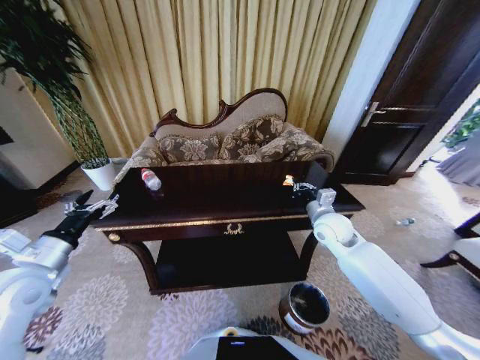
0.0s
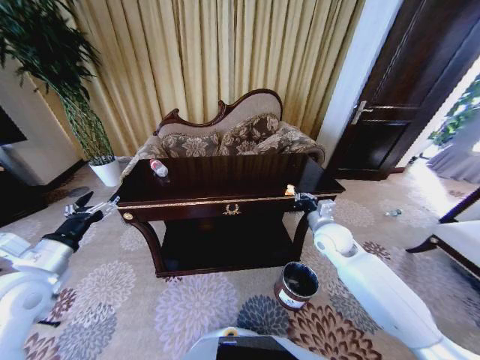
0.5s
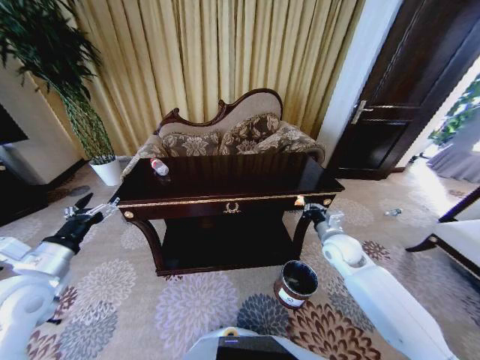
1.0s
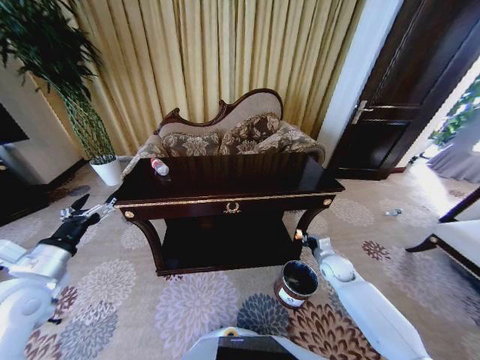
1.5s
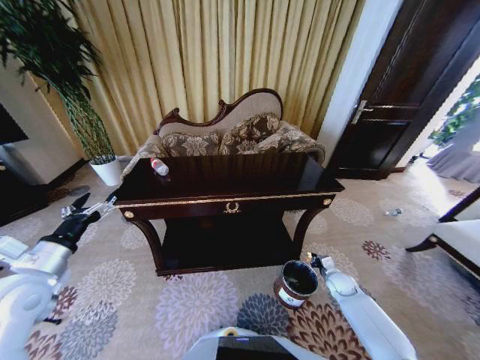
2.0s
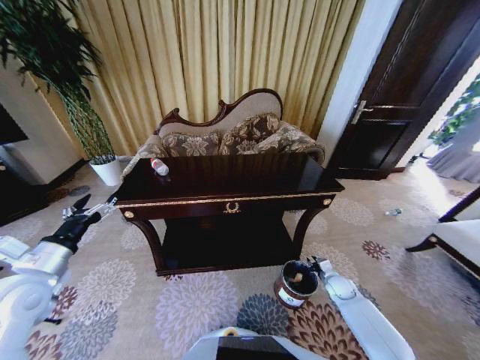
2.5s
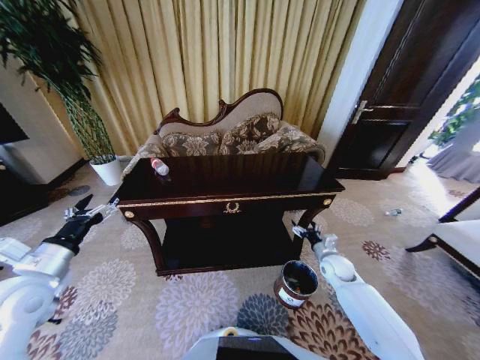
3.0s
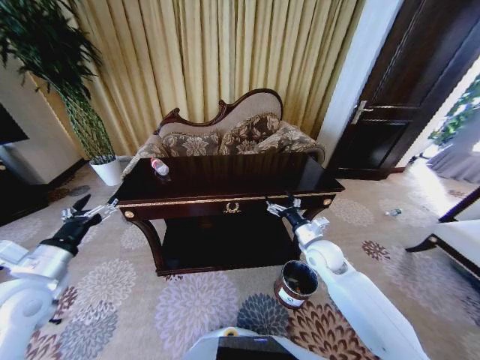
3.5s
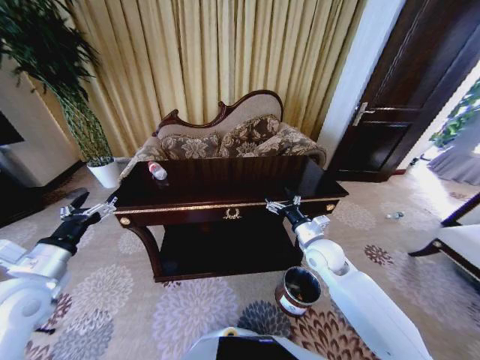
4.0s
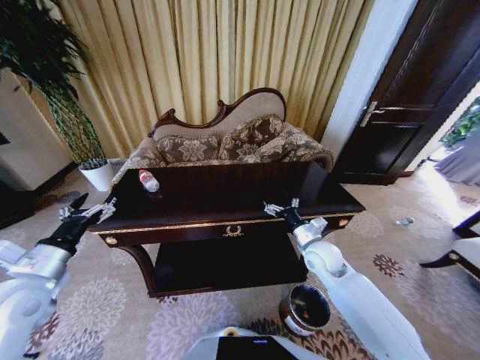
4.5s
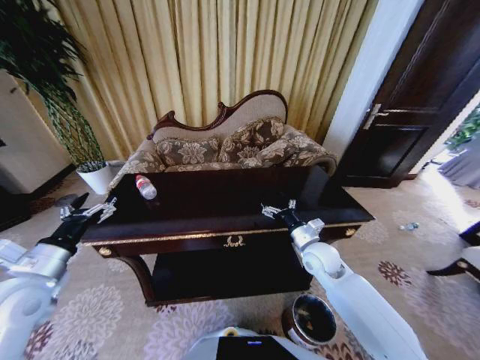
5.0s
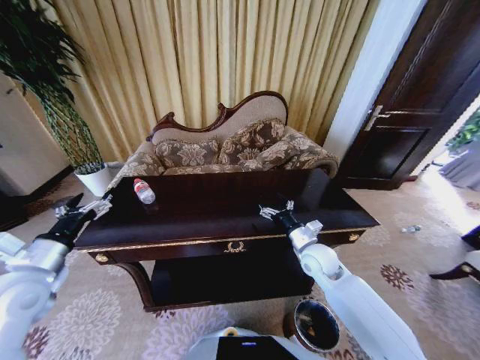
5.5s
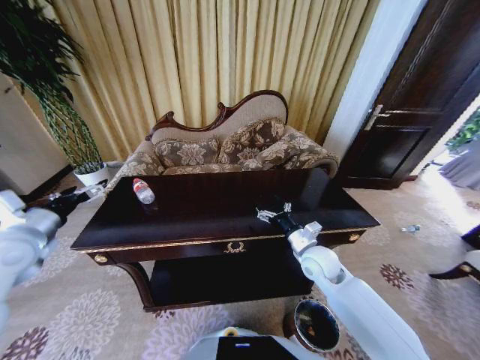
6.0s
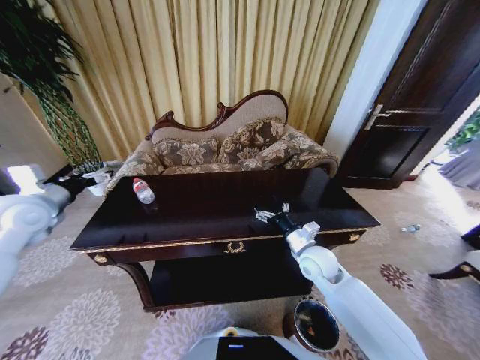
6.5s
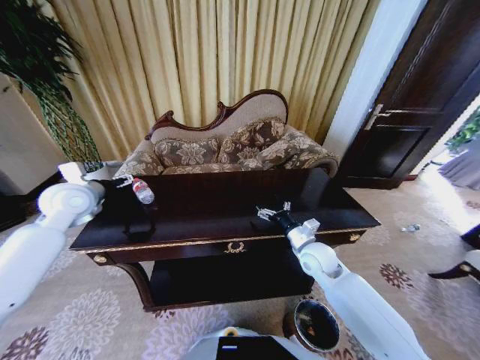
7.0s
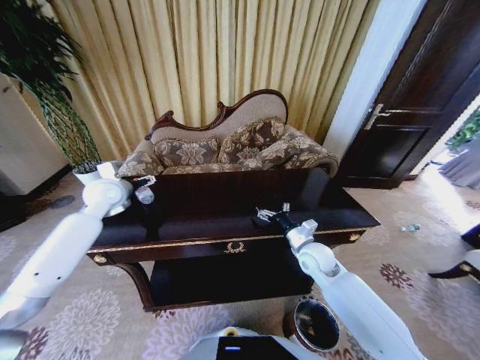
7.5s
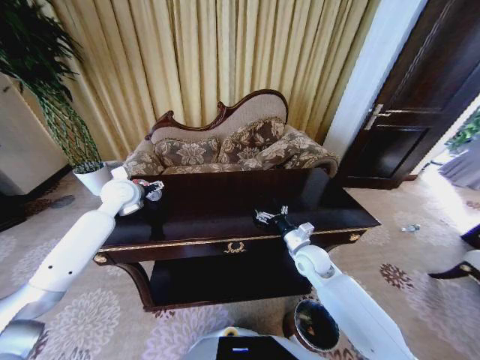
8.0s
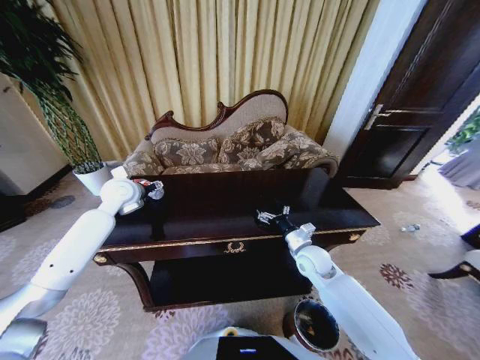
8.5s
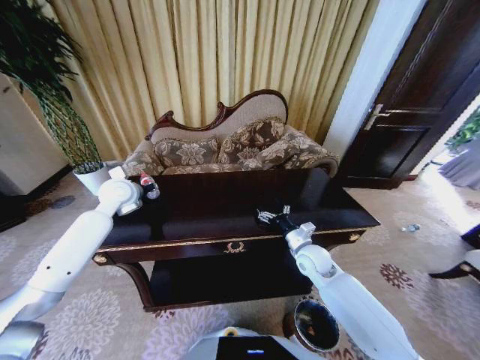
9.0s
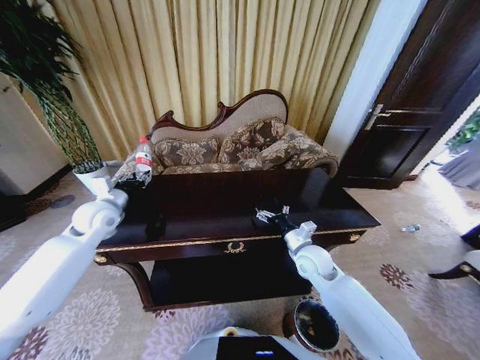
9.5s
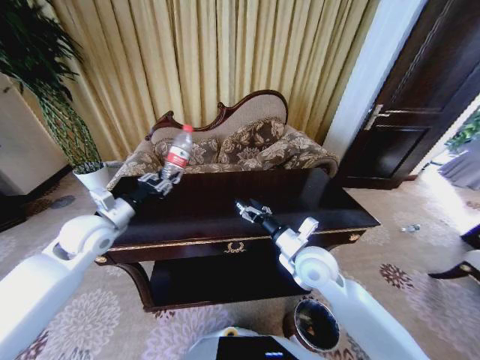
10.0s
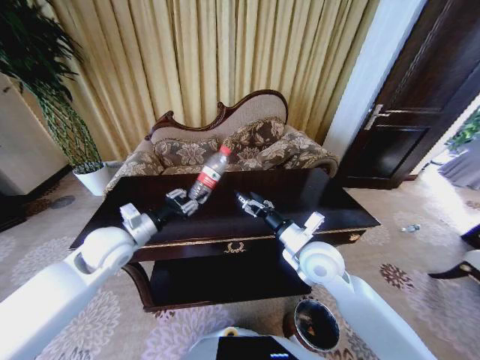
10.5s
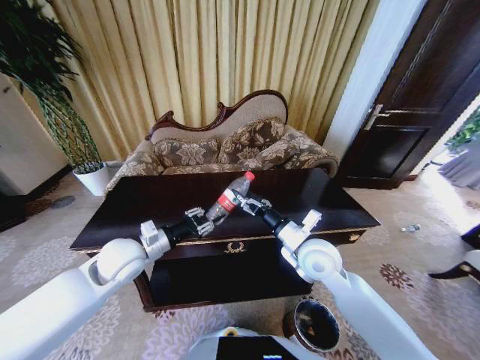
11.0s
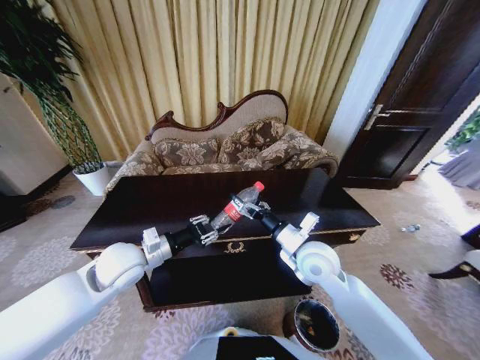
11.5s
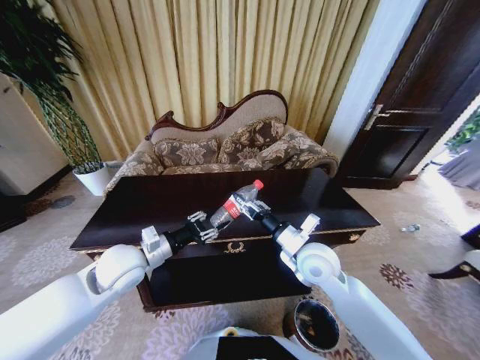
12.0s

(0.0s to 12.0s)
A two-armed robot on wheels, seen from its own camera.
Task of the whole recording: Move to the front of the table and place the trash on the table into the trash bin.
0.0s - 2.0s: The right gripper heads downward and to the right, covering about 30 cm.
2.0s - 4.0s: The right gripper shifts some 30 cm upward and to the left, and opens up.
4.0s - 6.0s: The left gripper heads forward and upward, covering roughly 10 cm.
6.0s - 8.0s: The left gripper shifts about 25 cm forward and to the right.
8.0s - 10.0s: The right gripper heads upward, backward and to the left, covering about 10 cm. The left gripper shifts roughly 10 cm backward, and closes.
10.0s - 12.0s: The left gripper goes about 10 cm to the right and backward. Meanwhile the right gripper closes up.

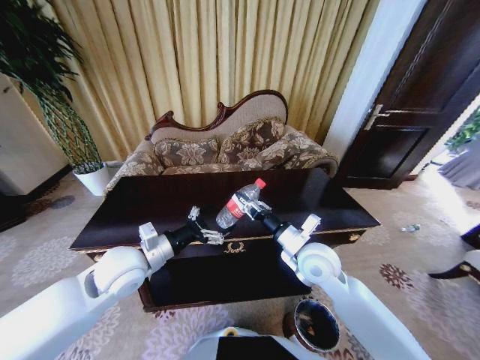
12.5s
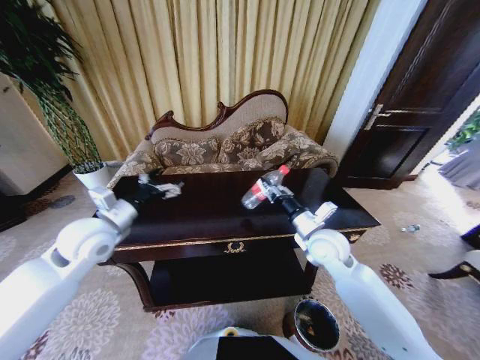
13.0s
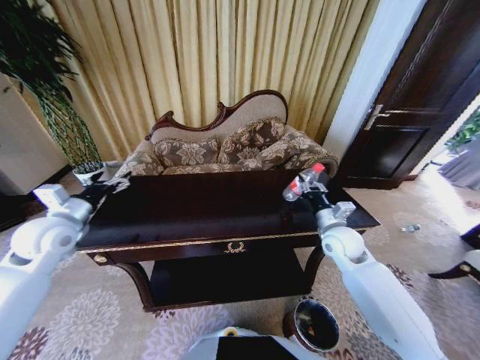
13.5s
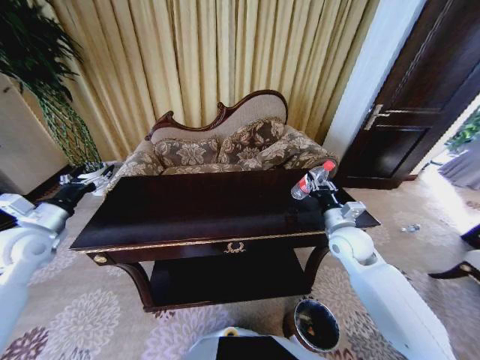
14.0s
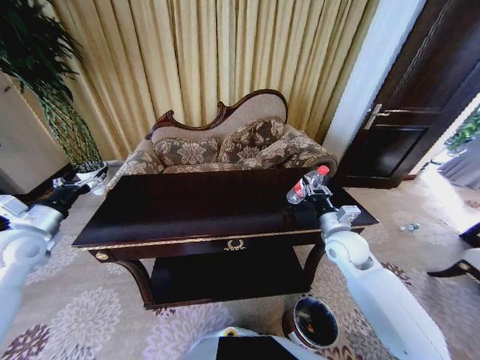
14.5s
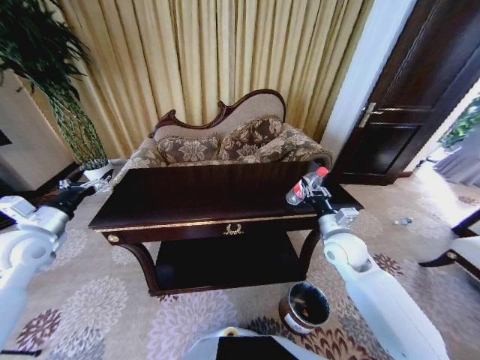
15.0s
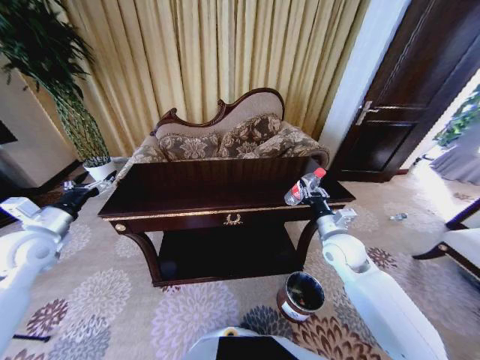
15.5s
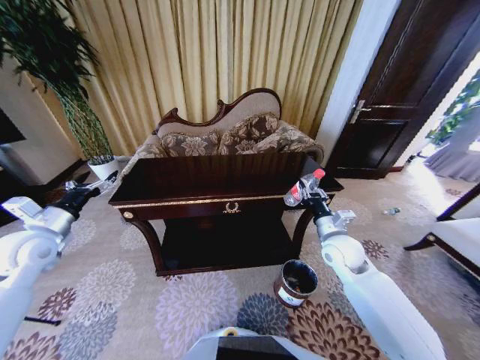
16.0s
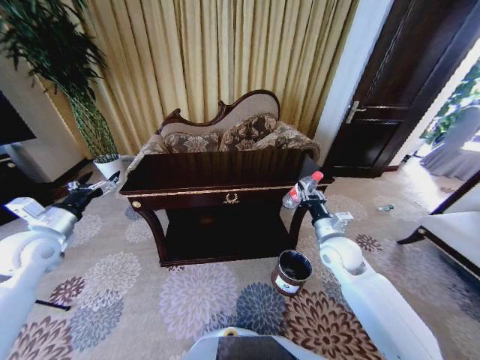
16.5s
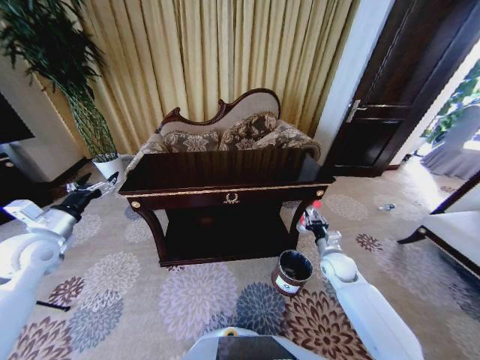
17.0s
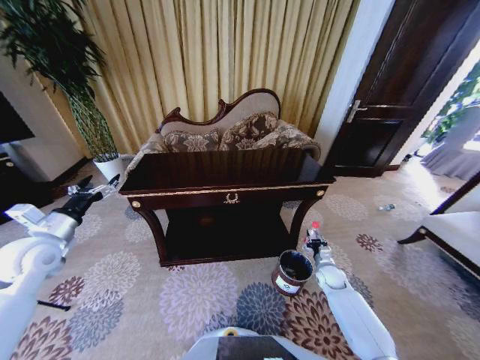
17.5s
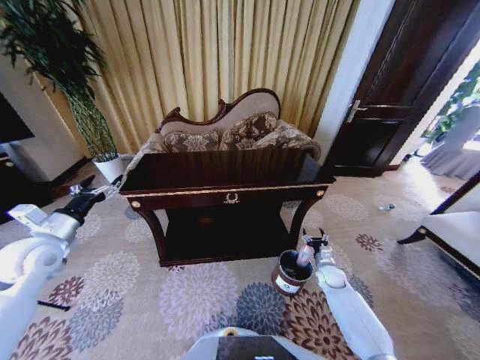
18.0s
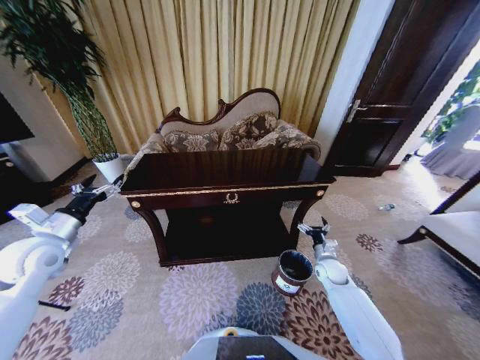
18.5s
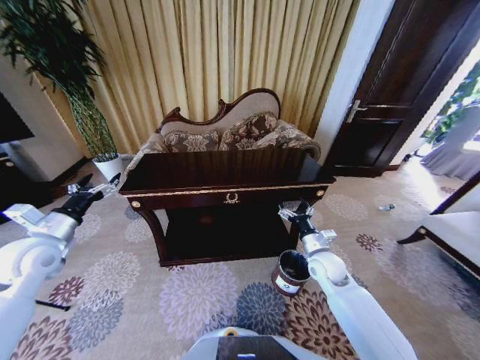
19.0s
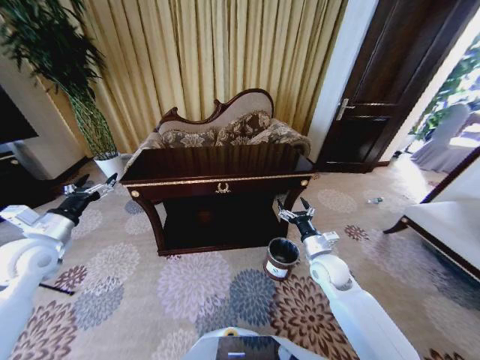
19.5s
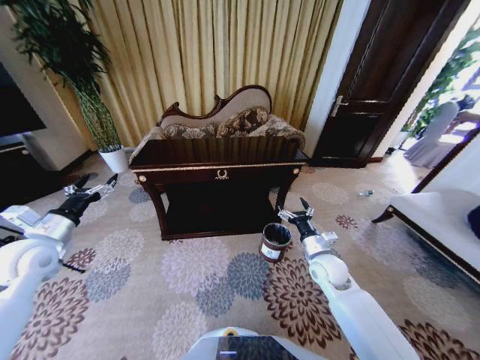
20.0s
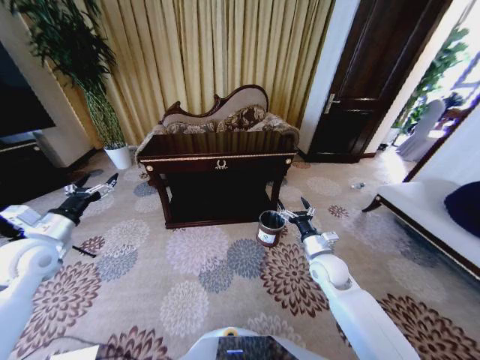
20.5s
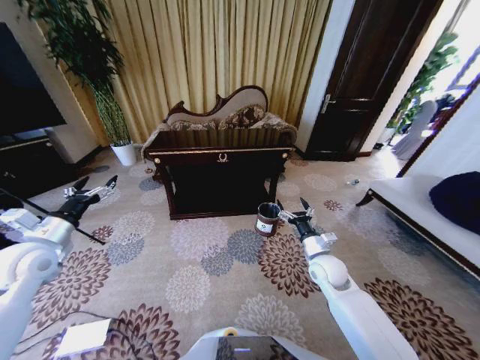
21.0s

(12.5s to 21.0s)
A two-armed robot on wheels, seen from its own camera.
Task of the whole recording: Move to the front of the table and place the trash on the table into the trash bin.
12.5s - 14.5s: The left gripper shifts some 25 cm to the left; the right gripper goes about 10 cm to the right.
16.5s - 19.0s: The right gripper moves some 25 cm downward and comes back, and opens its fingers.
